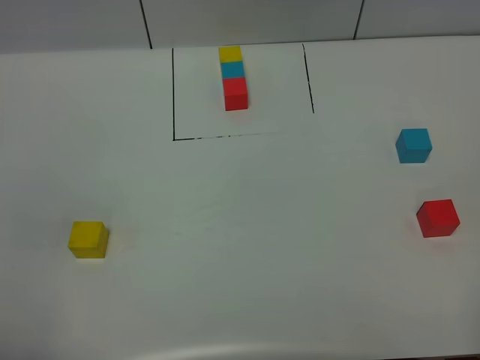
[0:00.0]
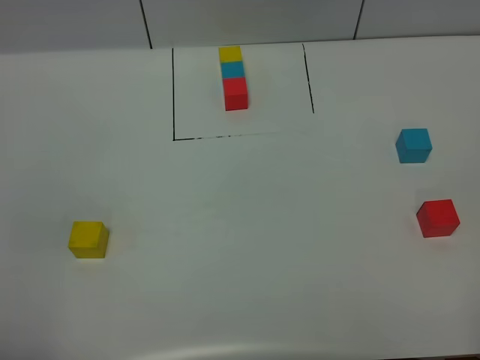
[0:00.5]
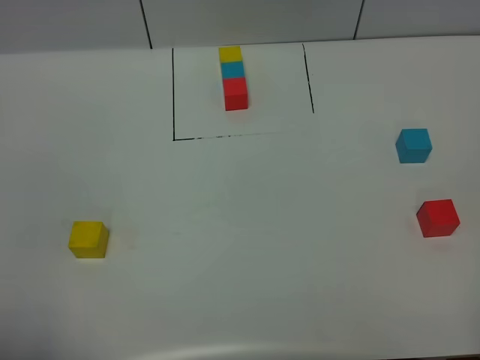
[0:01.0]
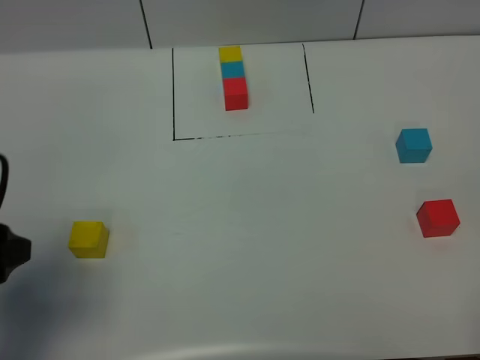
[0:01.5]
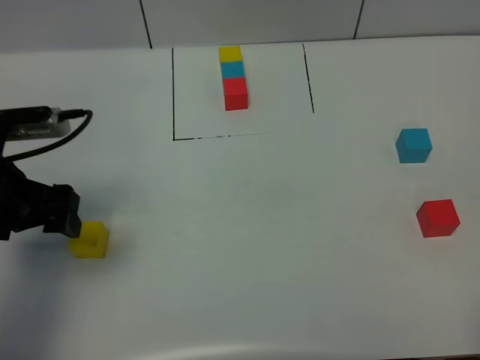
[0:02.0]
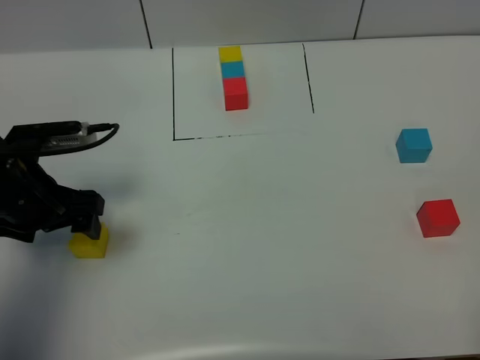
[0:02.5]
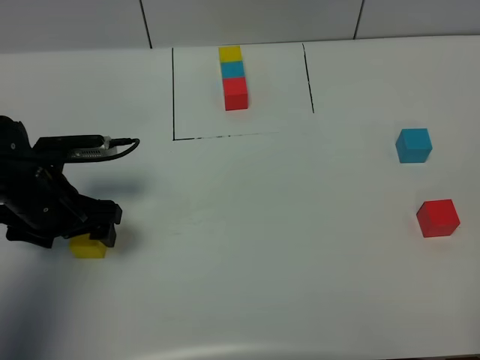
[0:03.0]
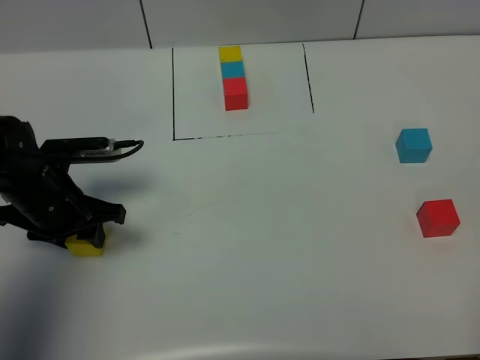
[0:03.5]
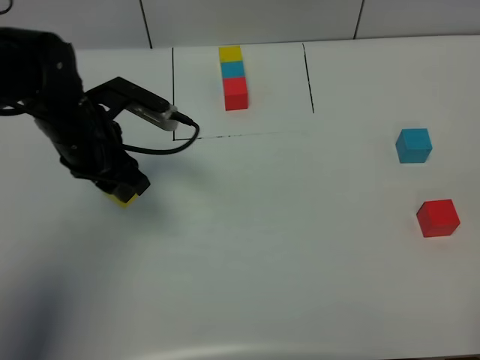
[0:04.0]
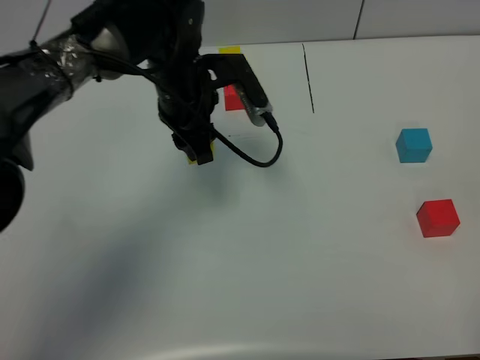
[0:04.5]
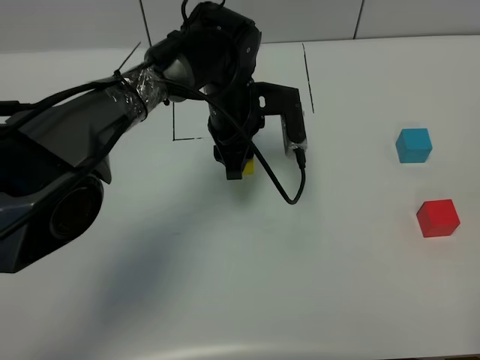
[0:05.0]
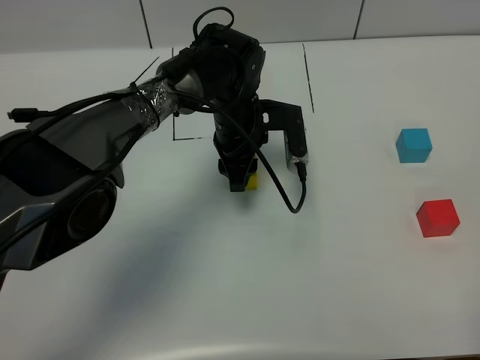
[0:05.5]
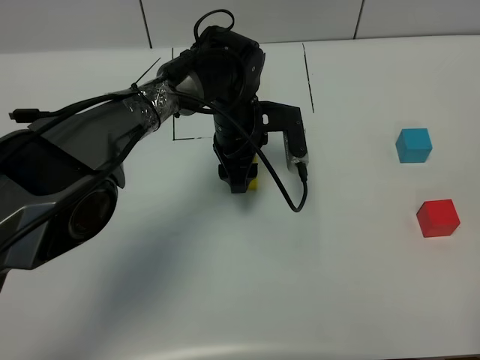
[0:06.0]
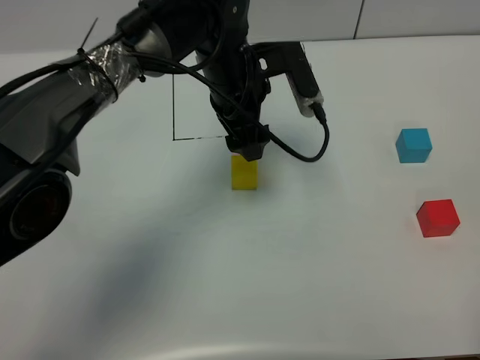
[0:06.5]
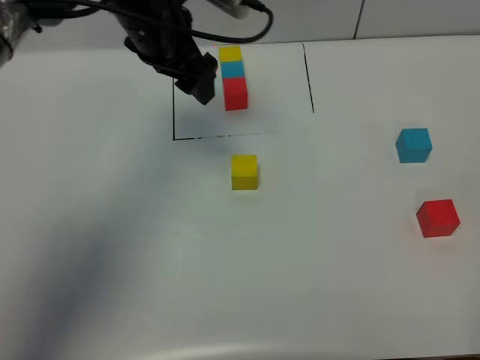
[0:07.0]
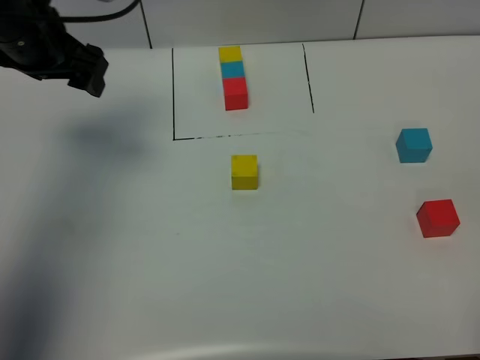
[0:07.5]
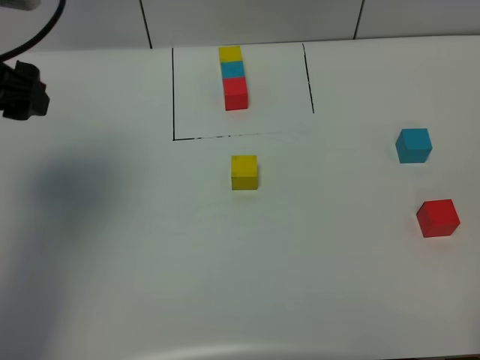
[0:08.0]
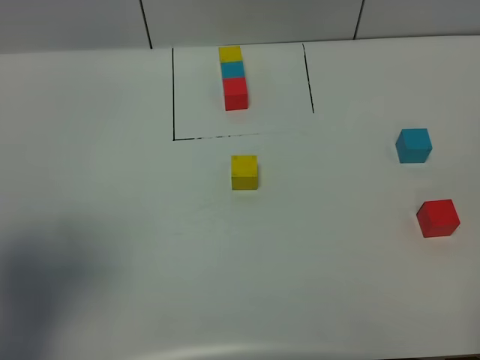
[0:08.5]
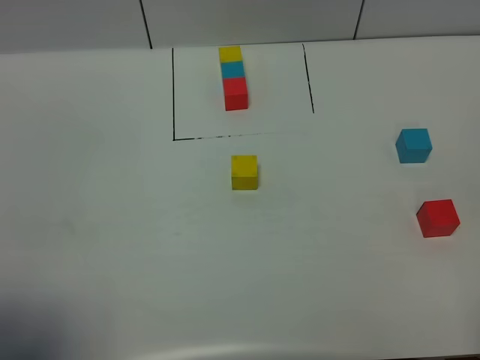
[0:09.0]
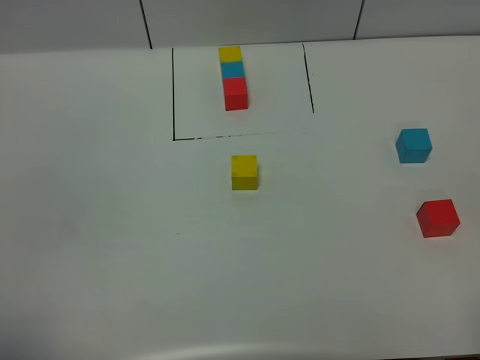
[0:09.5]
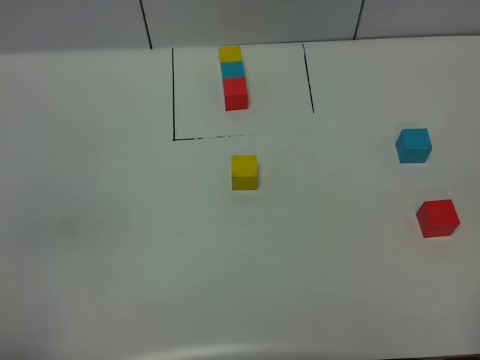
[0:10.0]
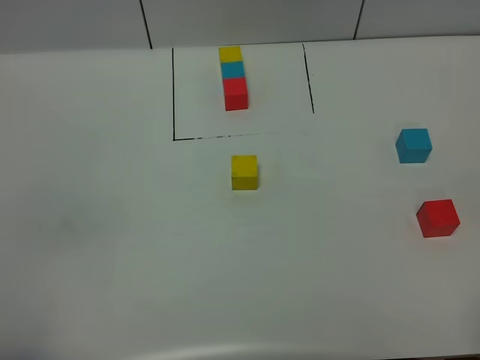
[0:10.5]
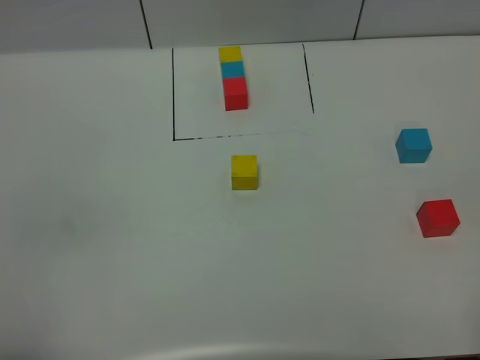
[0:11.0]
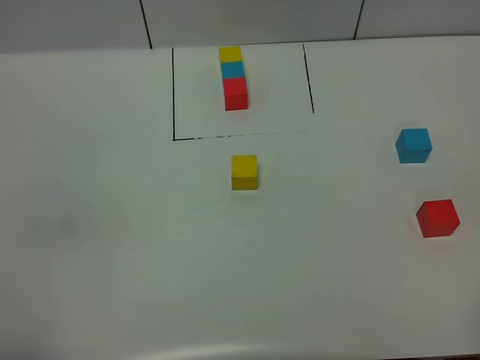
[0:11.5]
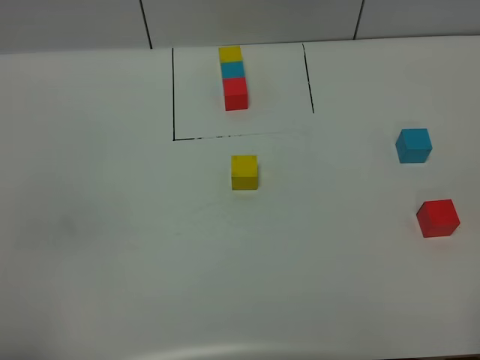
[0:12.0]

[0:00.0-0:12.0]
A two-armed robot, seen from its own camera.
Task of the whole recording: According to the building block template in front, assemble the scattered blocks together.
Step, 0:01.5 to 0:06.0: Put the yellow cube in the center of the table.
0:00.0 to 0:02.0: The left gripper shifts some 25 cm forward.
0:02.0 to 0:04.0: The left gripper shifts approximately 15 cm forward and to the right, and closes up.
0:04.0 to 0:06.0: The left gripper goes approximately 20 cm to the right, forward and downward.
0:06.0 to 0:08.0: The left gripper travels to the left, upward and backward by about 35 cm, and opens.
0:08.0 to 0:10.0: The left gripper heads backward, covering about 30 cm.

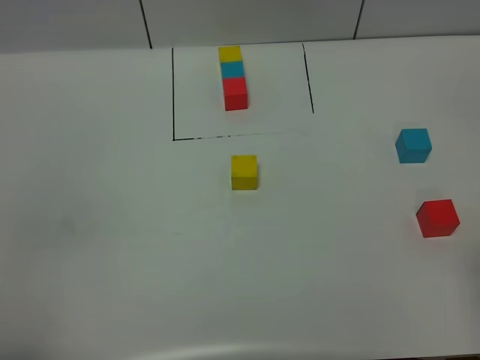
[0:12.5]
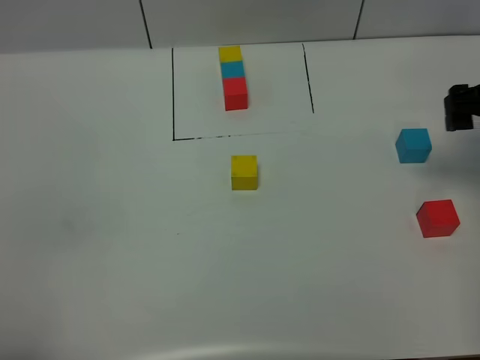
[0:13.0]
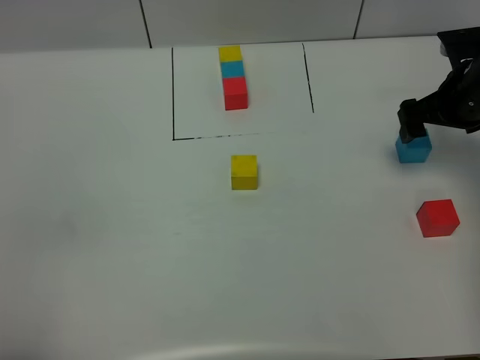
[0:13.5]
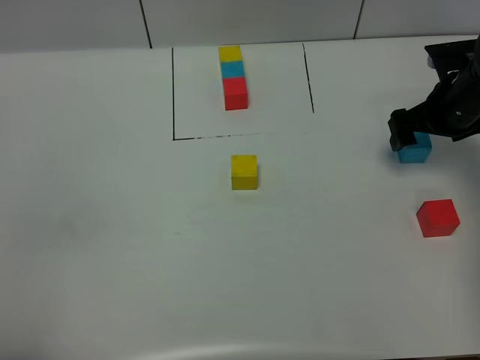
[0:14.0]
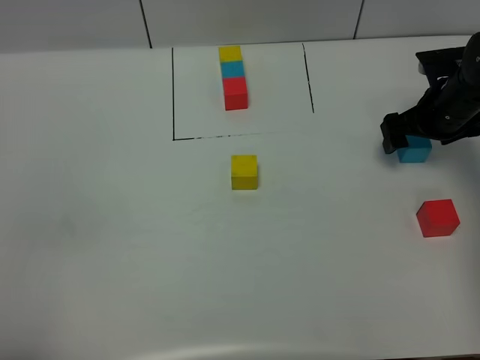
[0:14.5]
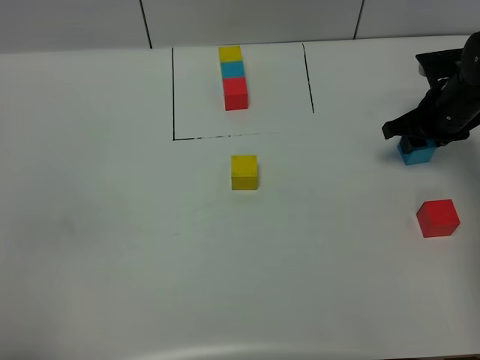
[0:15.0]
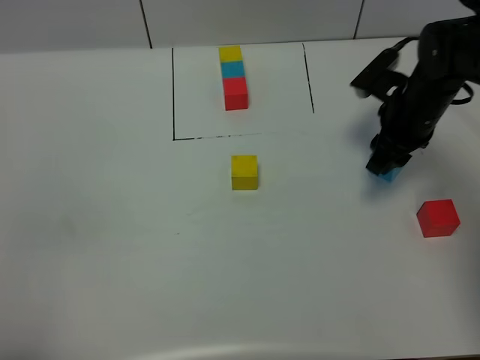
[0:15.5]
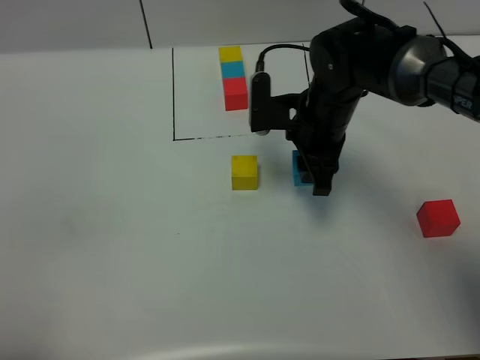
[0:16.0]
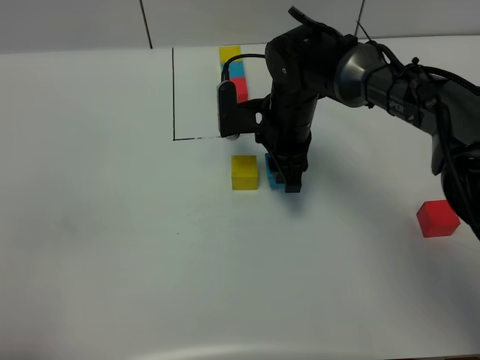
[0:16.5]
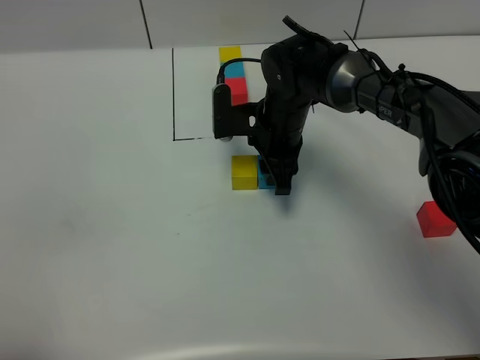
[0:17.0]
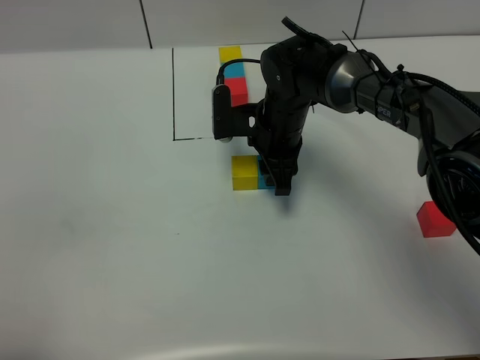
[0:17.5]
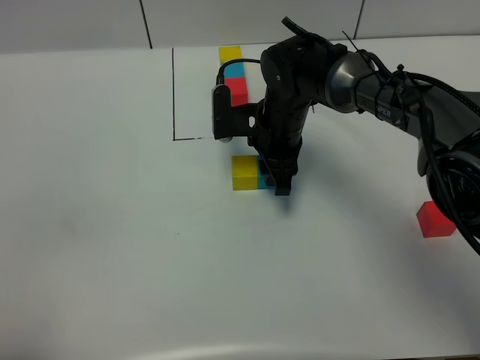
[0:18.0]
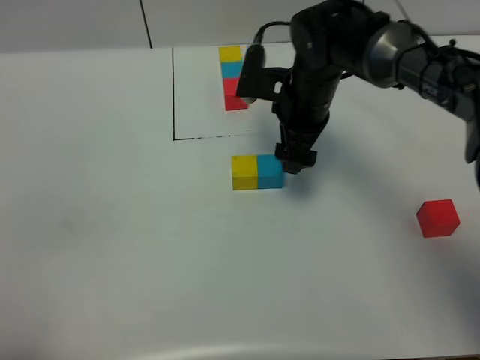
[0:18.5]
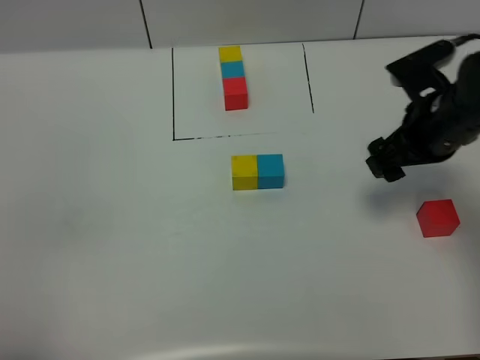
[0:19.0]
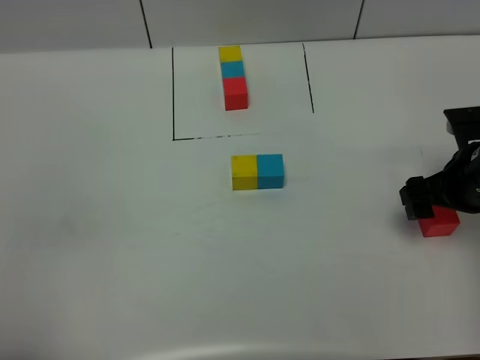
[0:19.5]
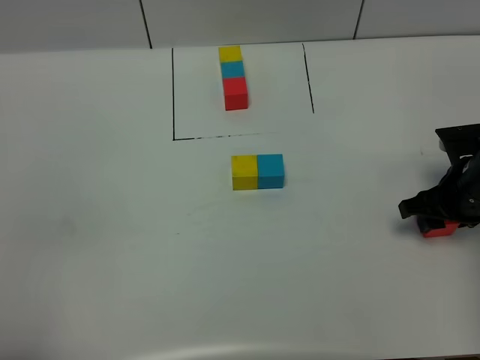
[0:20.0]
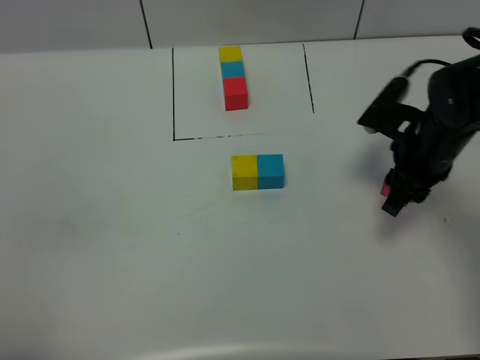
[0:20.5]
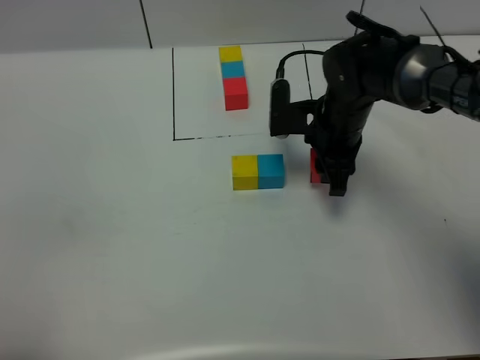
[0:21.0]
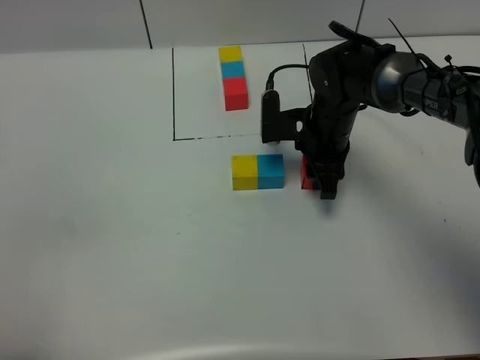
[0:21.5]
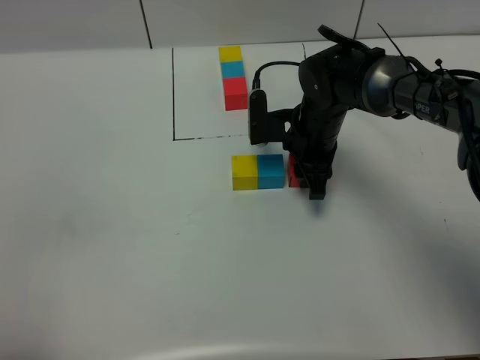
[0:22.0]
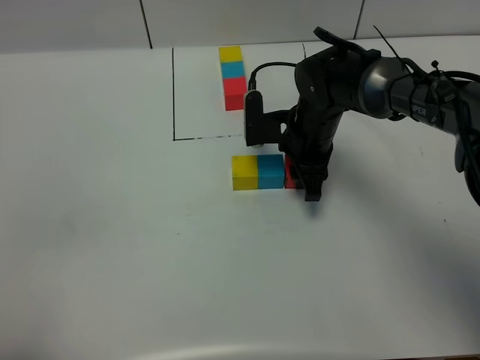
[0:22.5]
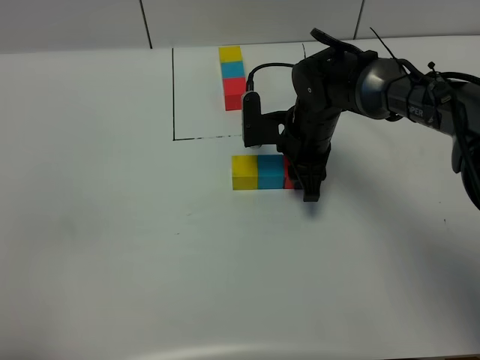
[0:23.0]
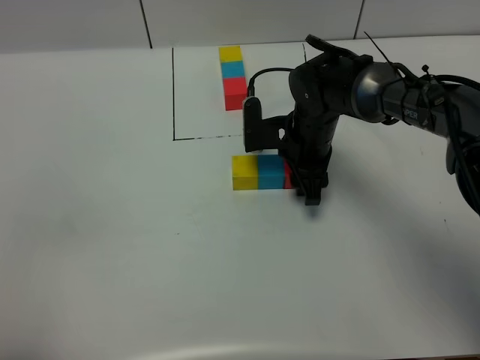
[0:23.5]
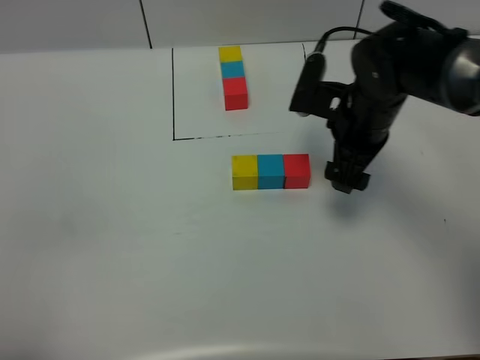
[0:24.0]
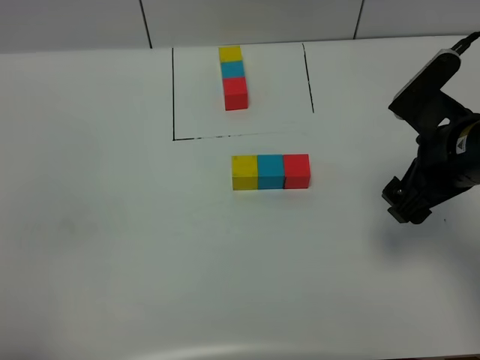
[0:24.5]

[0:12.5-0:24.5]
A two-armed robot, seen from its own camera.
Task of the whole recording: According to the building block template in front, assemble the scattered blocks together.
Step, 0:12.5 to 0:18.0: Put the blue cube on the right of the yellow cube.
Step, 0:18.5 to 0:23.5: Put the red cube on the right of the blue cube.
0:12.5 to 0:14.5: The right gripper is displaced forward and downward by some 35 cm.
0:14.5 to 0:16.5: The right gripper moves to the left, roughly 25 cm, and closes.
0:16.5 to 0:18.5: The right gripper changes place by roughly 5 cm, and opens.
0:18.5 to 0:20.5: The right gripper heads to the right and backward, covering about 15 cm, and closes its fingers.
0:20.5 to 0:22.5: The right gripper is displaced to the left and forward by roughly 15 cm.
0:22.5 to 0:24.5: The right gripper is displaced to the right, backward and upward by roughly 20 cm, and opens its fingers.

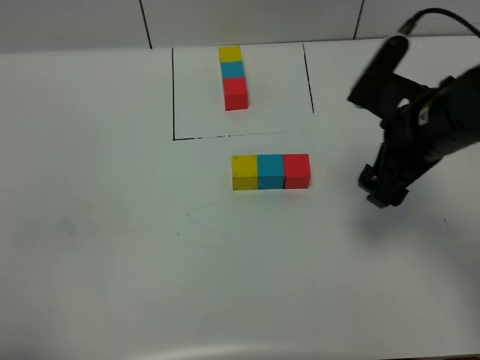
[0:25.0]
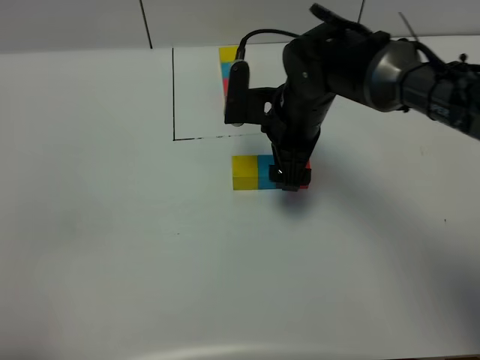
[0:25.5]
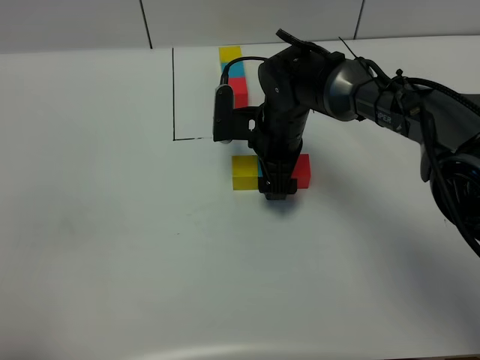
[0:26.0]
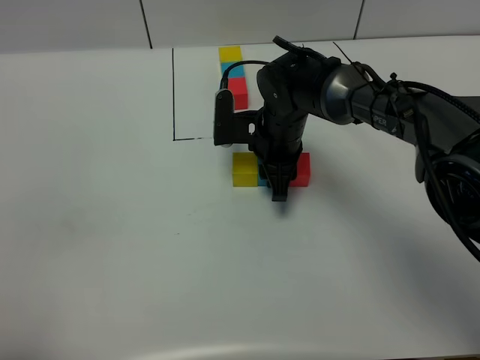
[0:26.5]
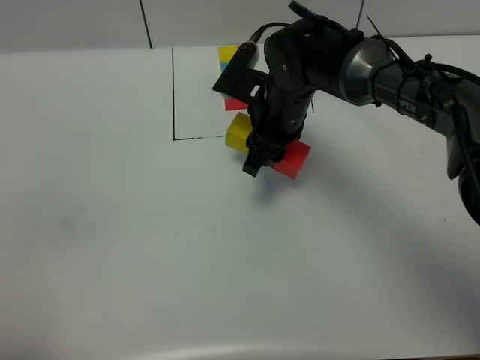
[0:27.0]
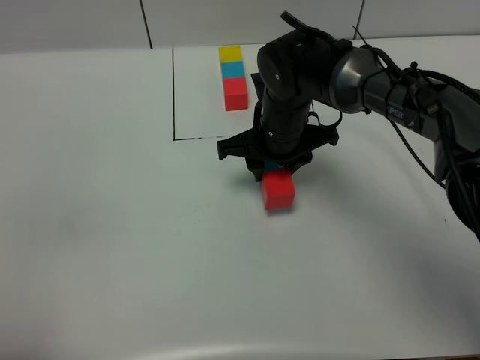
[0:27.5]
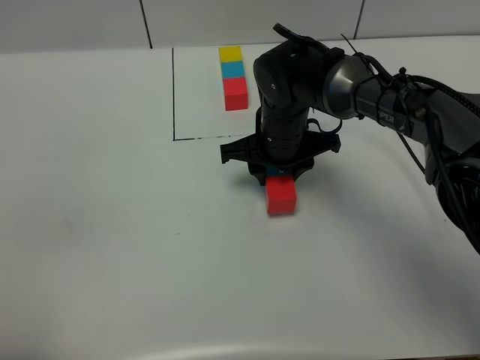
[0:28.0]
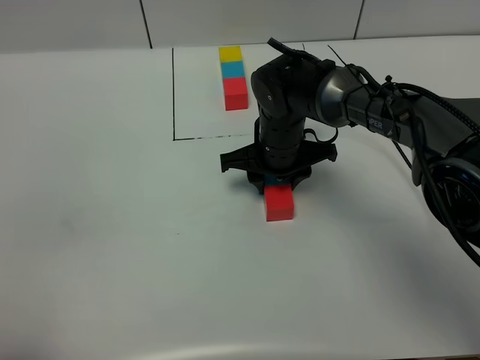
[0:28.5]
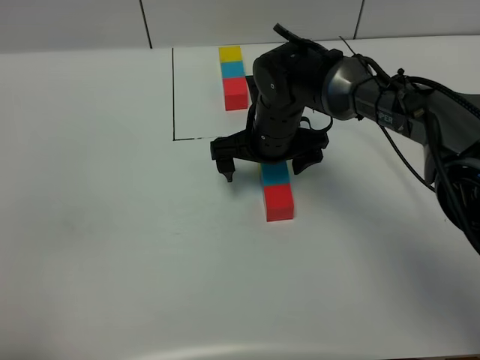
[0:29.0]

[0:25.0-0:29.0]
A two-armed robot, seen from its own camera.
Task of the whole recording: According to the building block template in front, assemble the scattered blocks together.
0:25.0 to 0:27.0: The right gripper goes some 20 cm to the left, forward and downward, and closes up.
0:27.0 to 0:29.0: The right gripper opens up.
